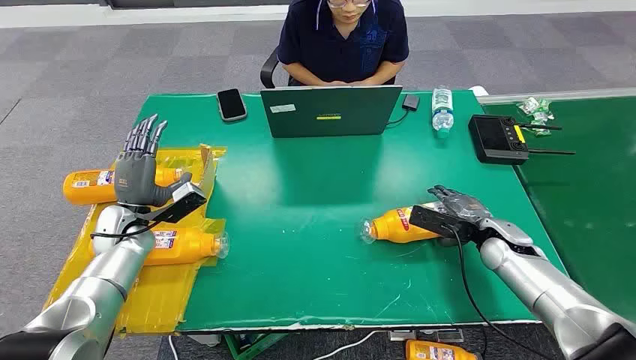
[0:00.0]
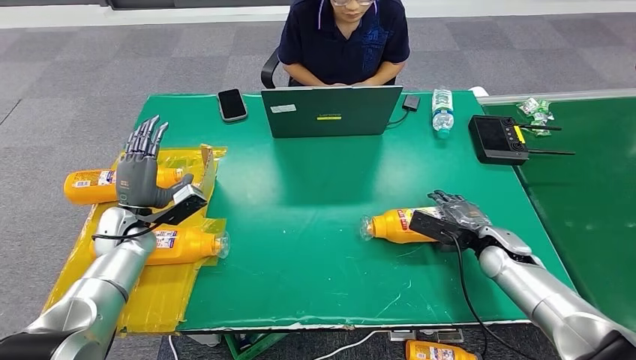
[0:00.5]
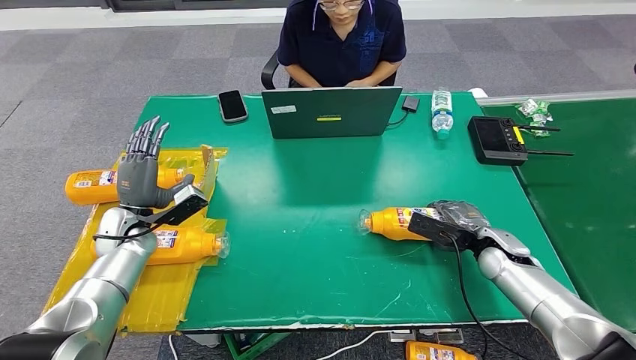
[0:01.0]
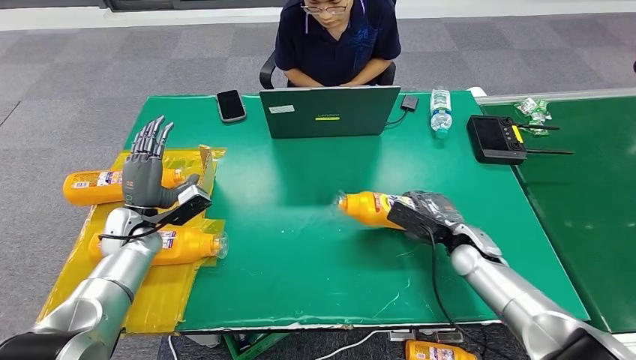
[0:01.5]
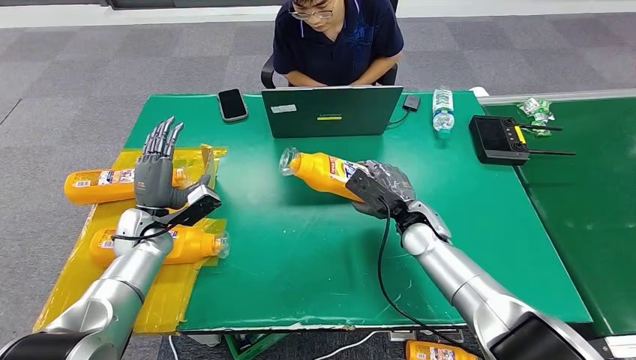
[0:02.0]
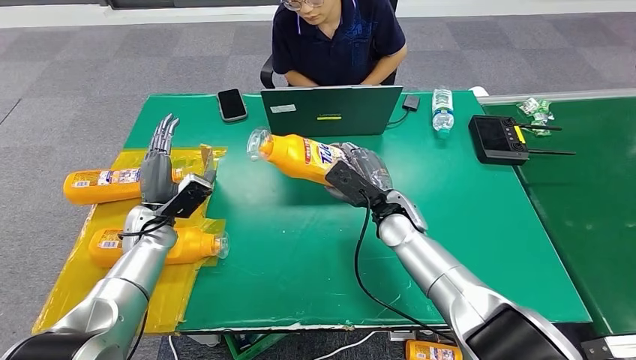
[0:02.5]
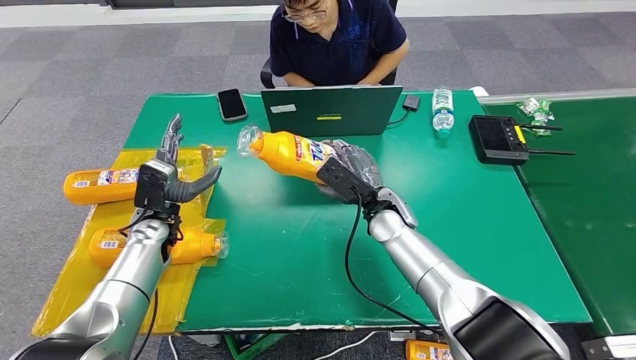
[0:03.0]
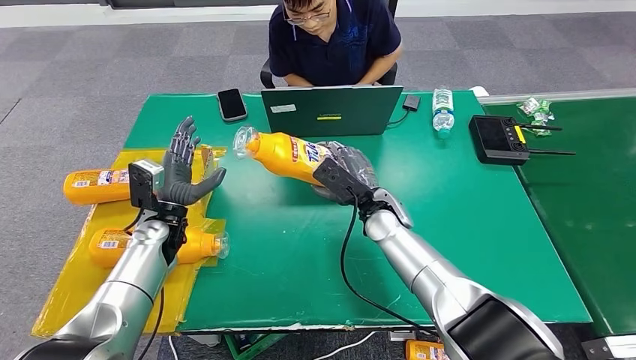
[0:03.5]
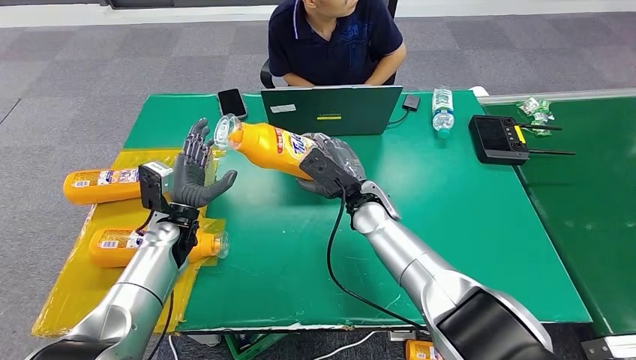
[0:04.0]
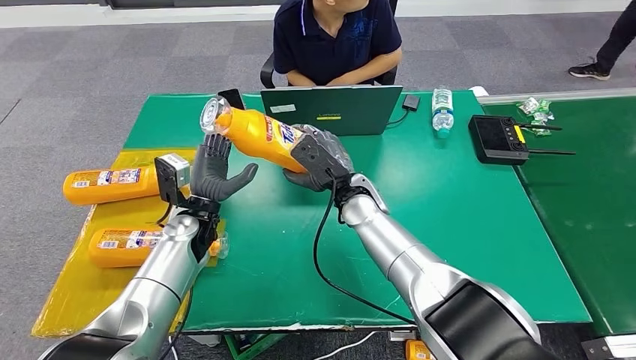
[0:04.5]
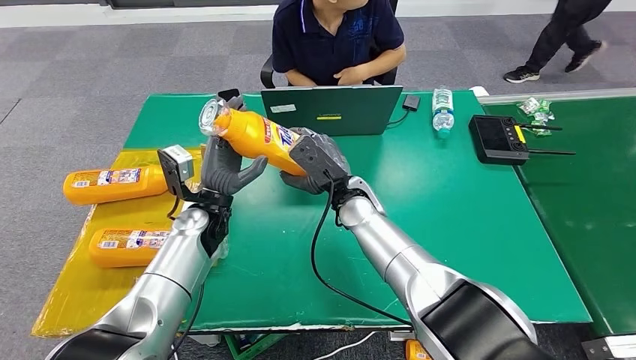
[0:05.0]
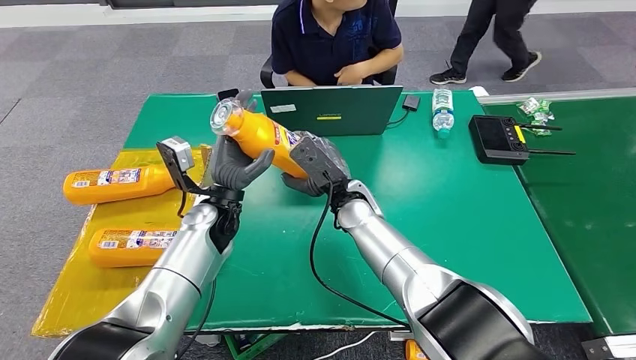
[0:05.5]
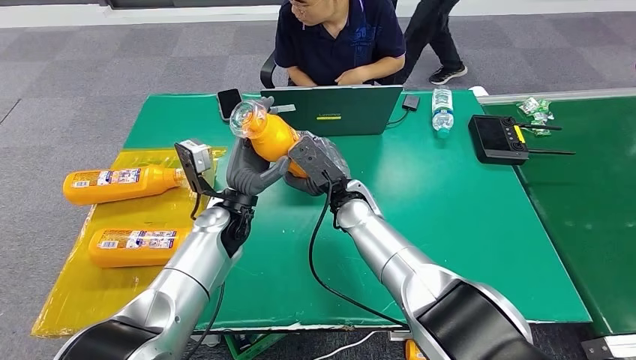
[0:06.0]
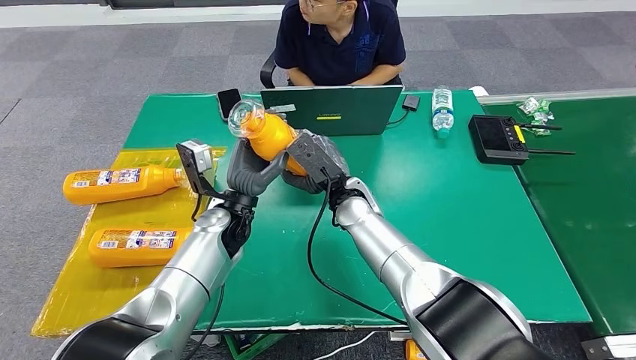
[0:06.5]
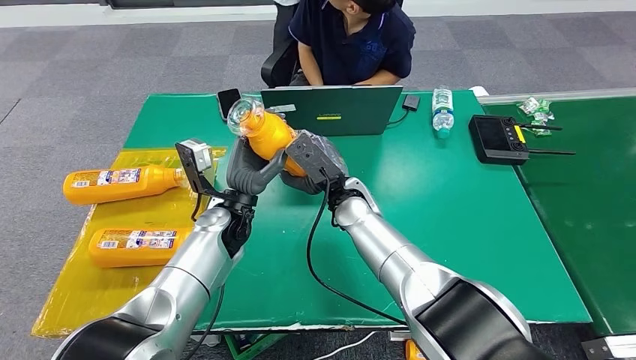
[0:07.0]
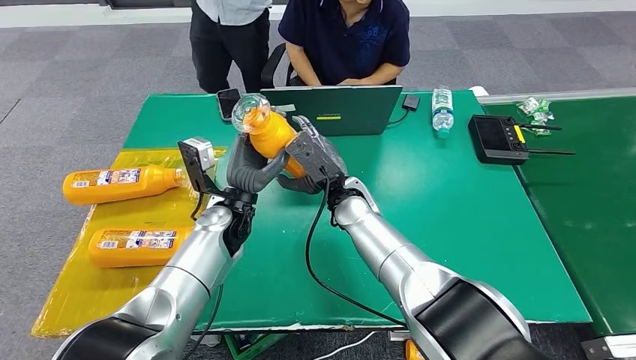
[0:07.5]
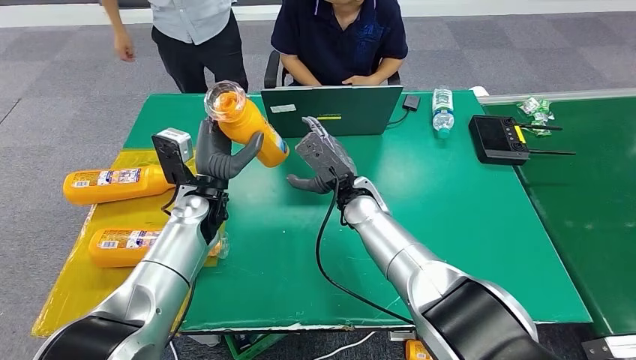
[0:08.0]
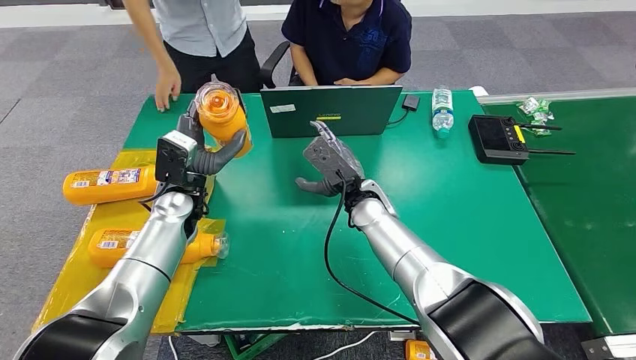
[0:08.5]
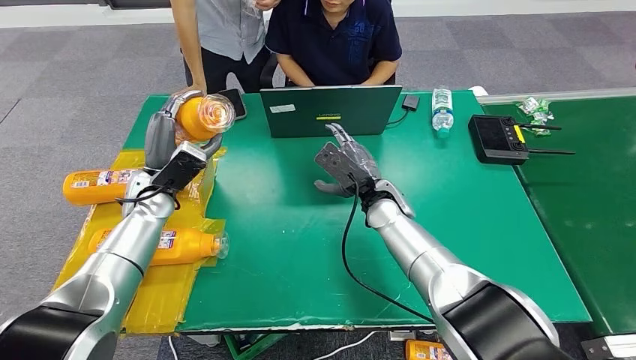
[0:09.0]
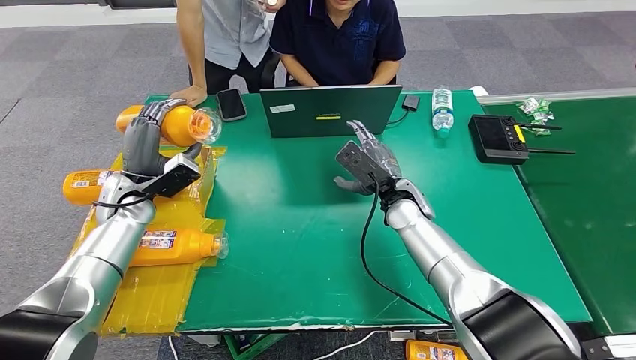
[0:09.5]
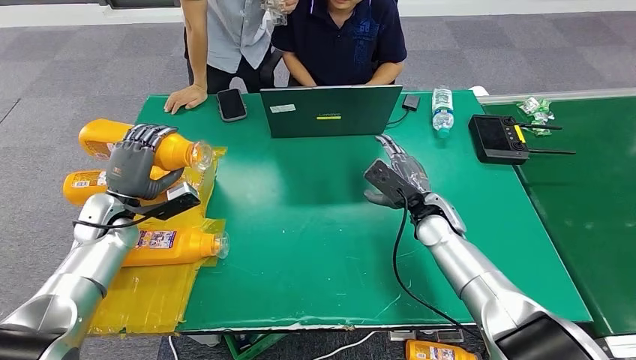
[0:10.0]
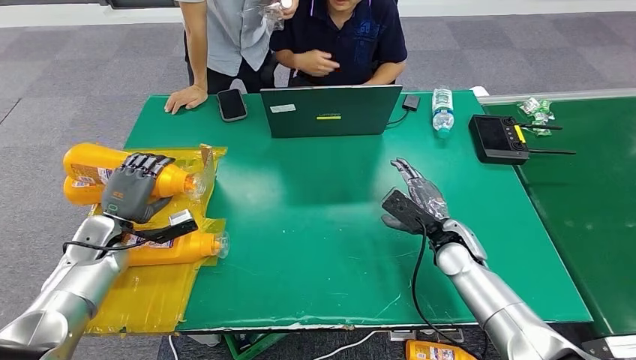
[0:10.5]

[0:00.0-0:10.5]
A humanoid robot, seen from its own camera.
Step, 0:00.0 to 0:02.0: Pick up the bottle from the table.
Step, 0:02.5 to 0:10.5: Turn the bottle to the front side.
